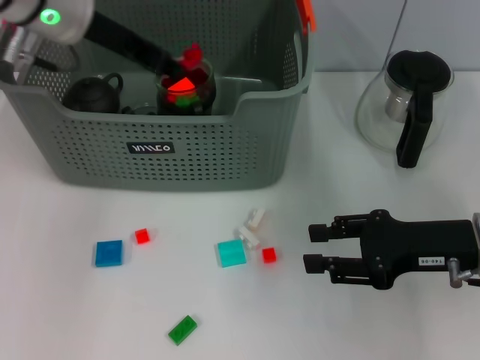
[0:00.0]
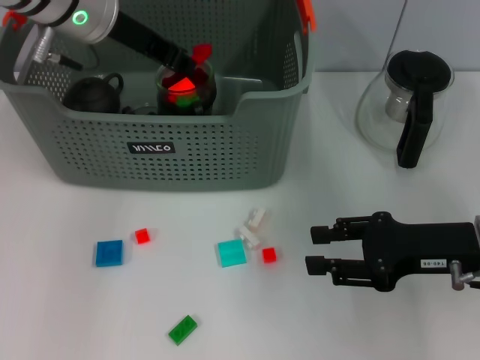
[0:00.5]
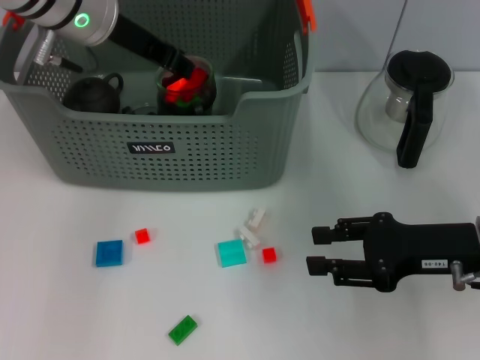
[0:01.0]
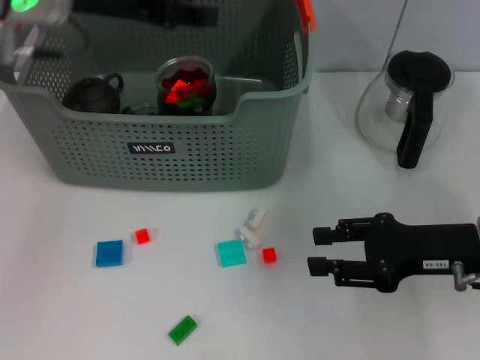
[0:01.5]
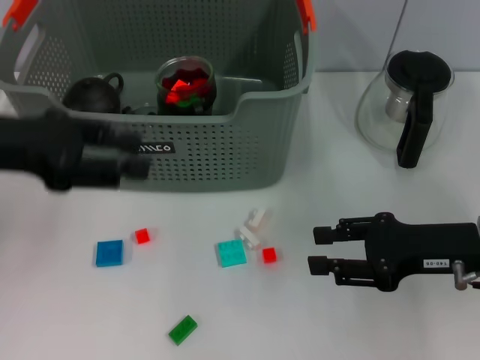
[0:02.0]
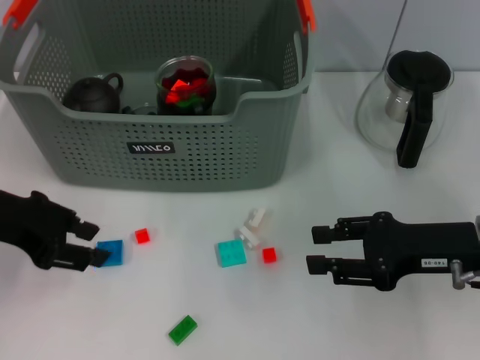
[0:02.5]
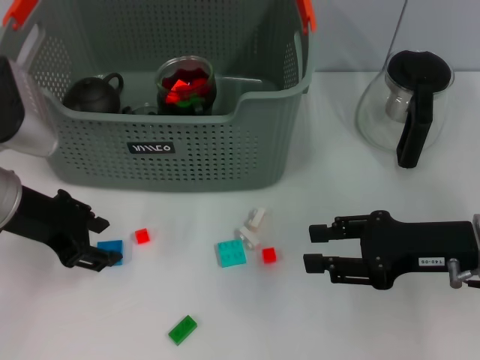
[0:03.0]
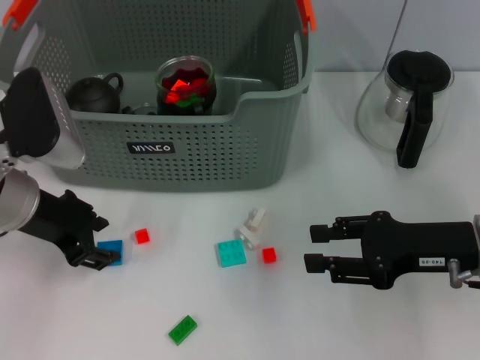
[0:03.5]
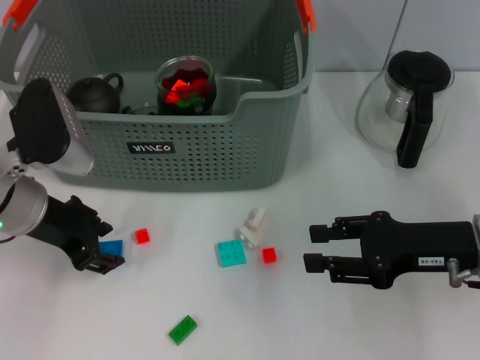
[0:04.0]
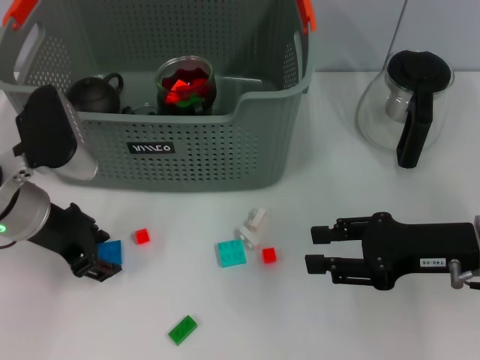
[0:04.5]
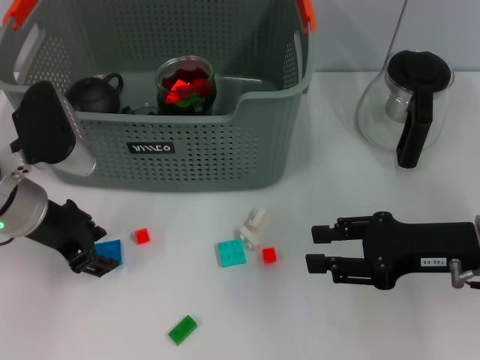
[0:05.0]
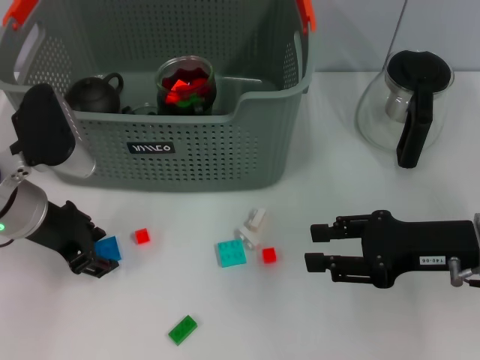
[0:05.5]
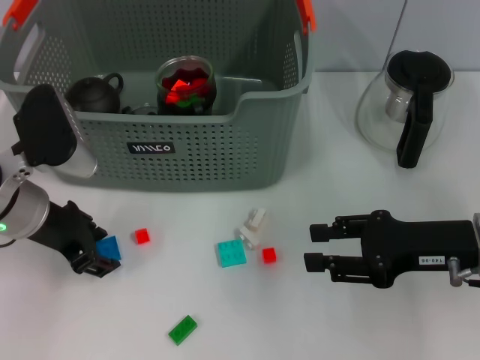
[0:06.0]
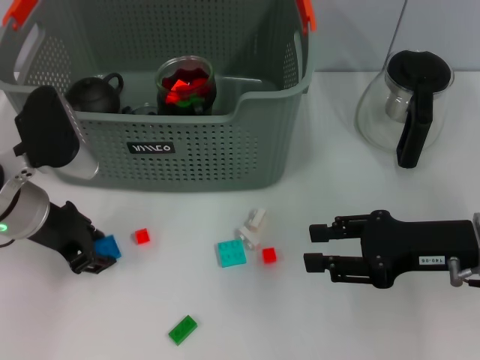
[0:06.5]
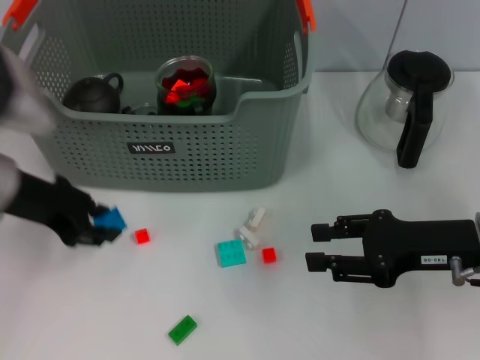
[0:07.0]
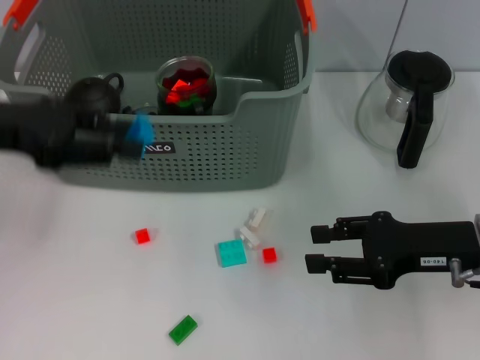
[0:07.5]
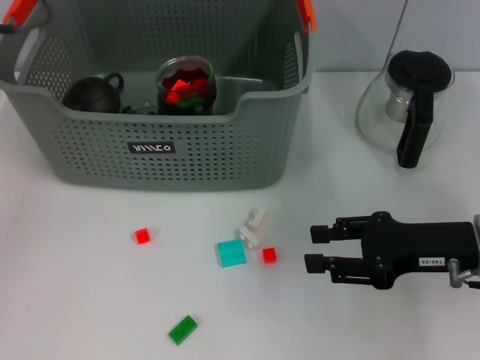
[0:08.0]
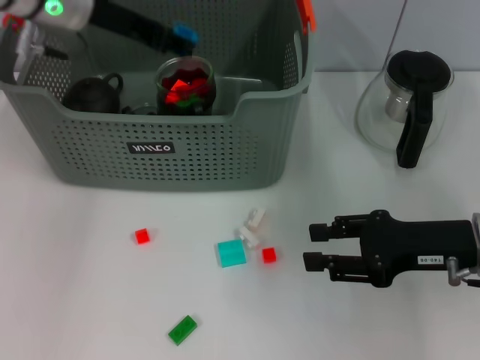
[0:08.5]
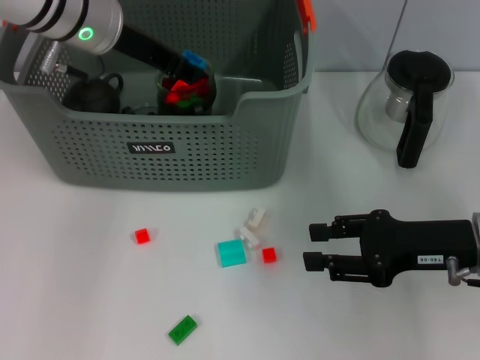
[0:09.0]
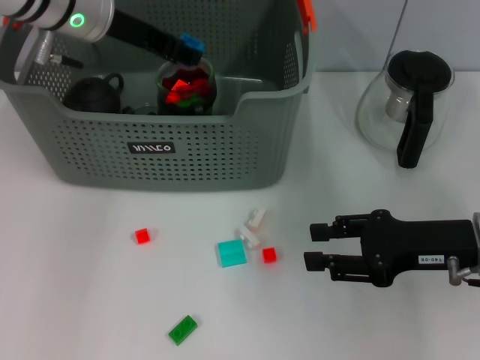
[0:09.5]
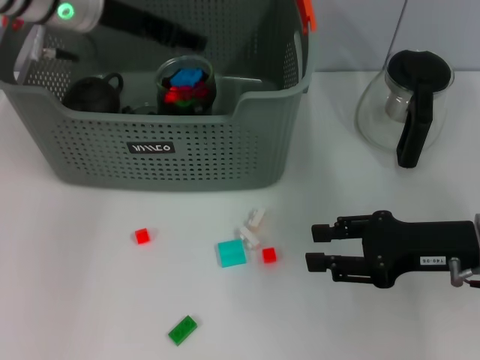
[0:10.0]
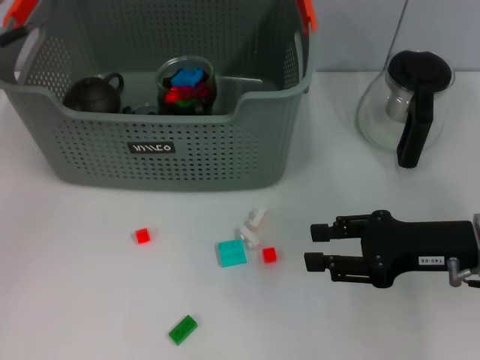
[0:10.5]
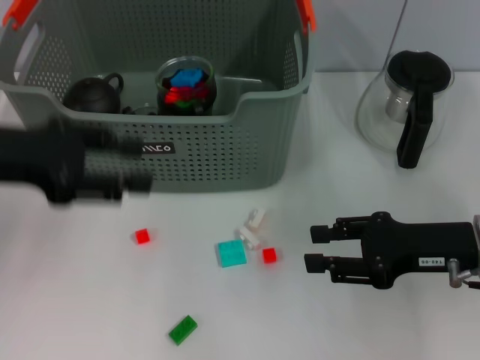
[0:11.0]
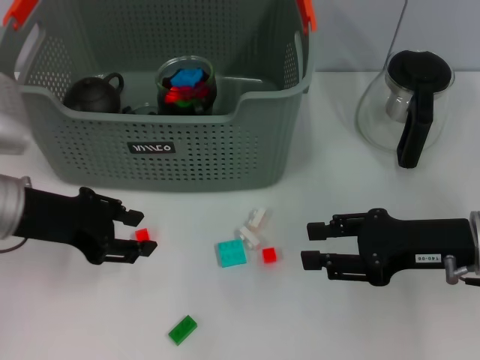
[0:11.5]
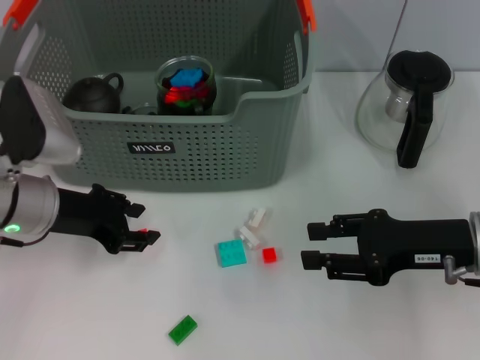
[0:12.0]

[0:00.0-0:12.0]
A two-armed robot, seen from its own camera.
Task of the whole recording: pick up the teacup on the table and place it into the storage bin, pick up the block on the table and place it into the storage bin.
Step, 0:01.5 to 0:06.0: Grasp the dark blue block with left gripper.
Step, 0:07.0 to 0:10.0: Place the dark blue block in the storage box with left gripper.
0:00.0 to 0:02.0: The left gripper travels backward and to the left by approximately 15 cm, and opens its fingers.
0:02.0 to 0:04.0: The left gripper goes about 10 cm downward.
0:04.0 to 0:06.0: Neither gripper changes place.
0:06.0 to 0:08.0: The left gripper travels upward and forward by about 20 cm.
0:08.0 to 0:10.0: The left gripper travels to the right by some 5 cm.
0:10.0 to 0:12.0: The left gripper shifts some 20 cm downward and backward.

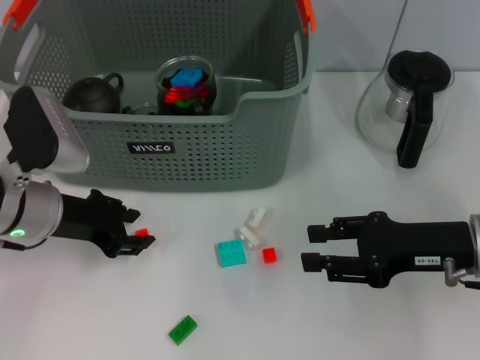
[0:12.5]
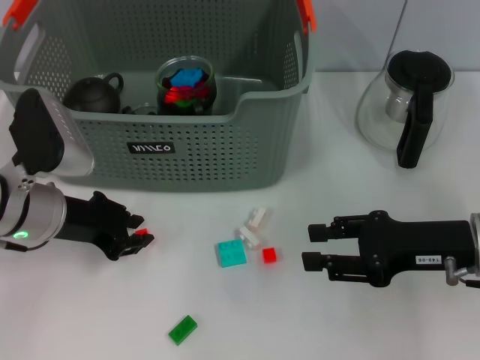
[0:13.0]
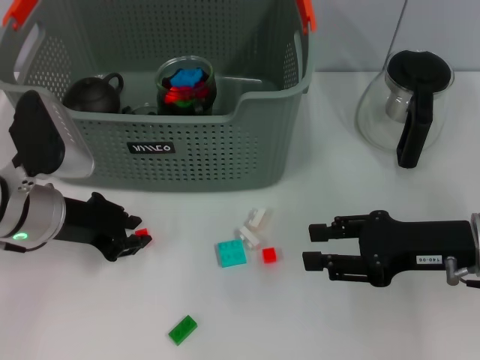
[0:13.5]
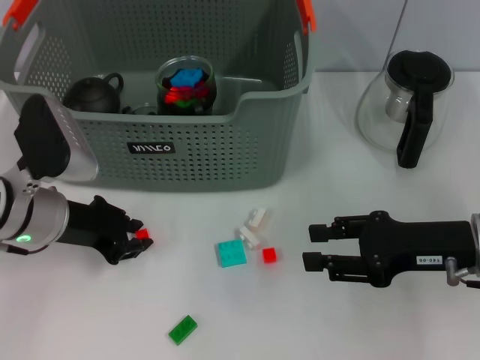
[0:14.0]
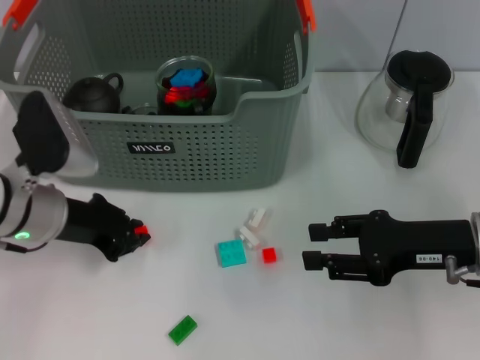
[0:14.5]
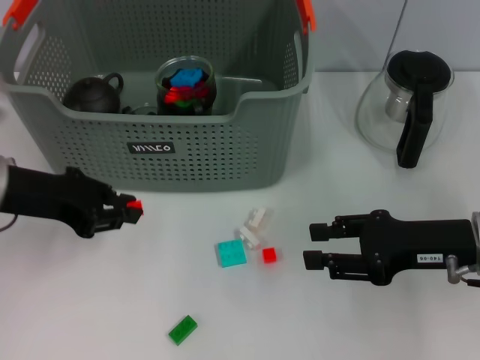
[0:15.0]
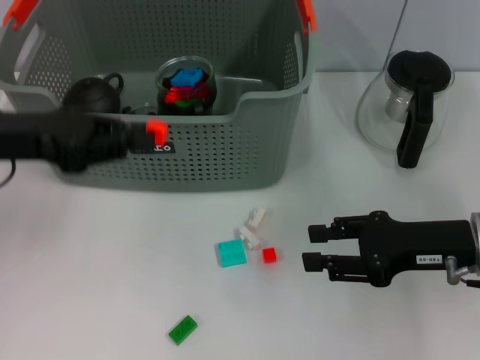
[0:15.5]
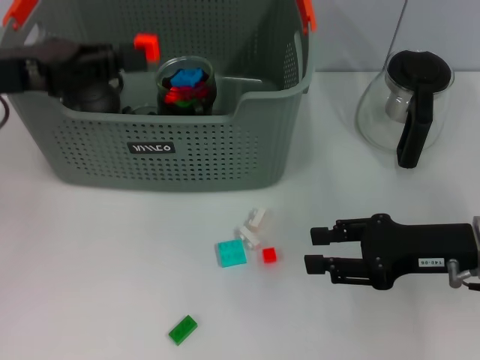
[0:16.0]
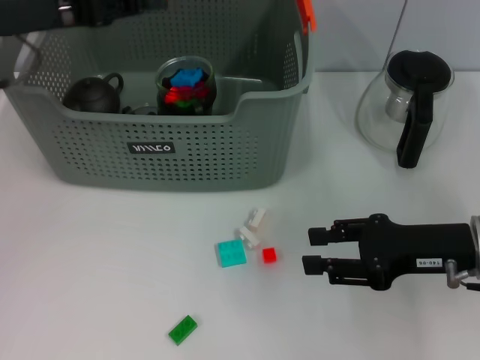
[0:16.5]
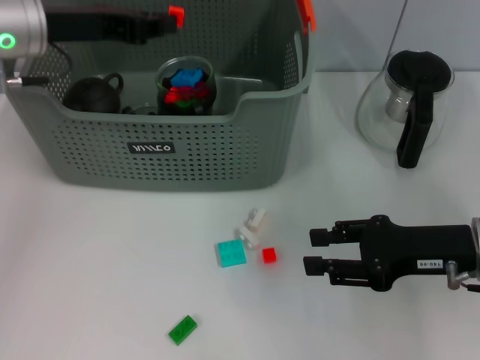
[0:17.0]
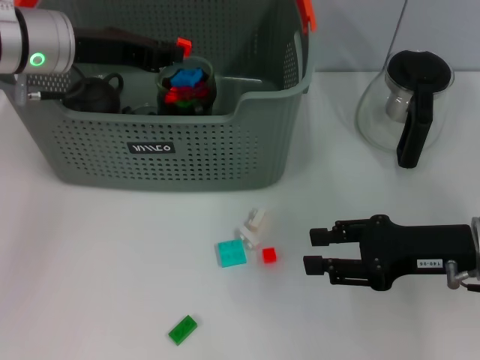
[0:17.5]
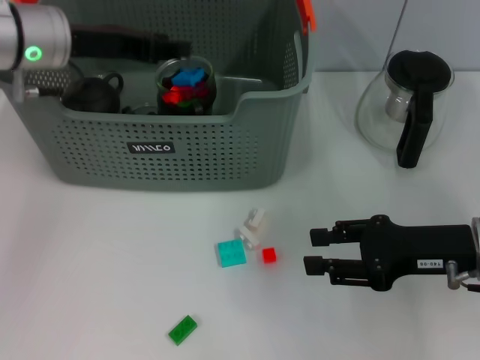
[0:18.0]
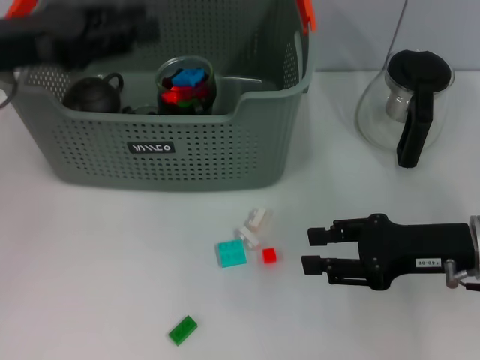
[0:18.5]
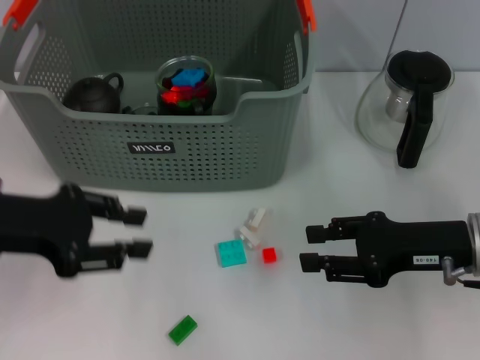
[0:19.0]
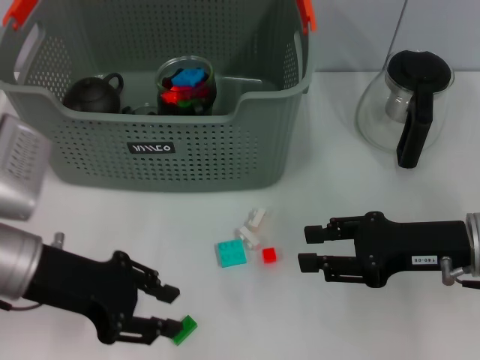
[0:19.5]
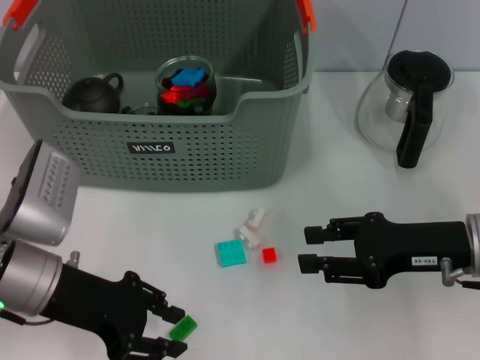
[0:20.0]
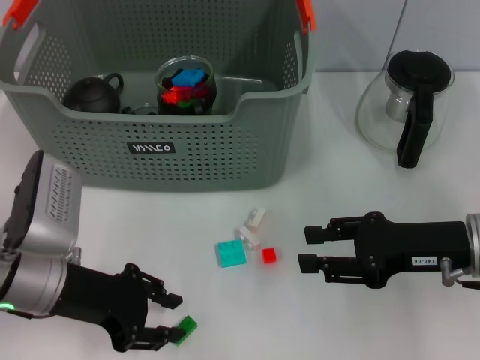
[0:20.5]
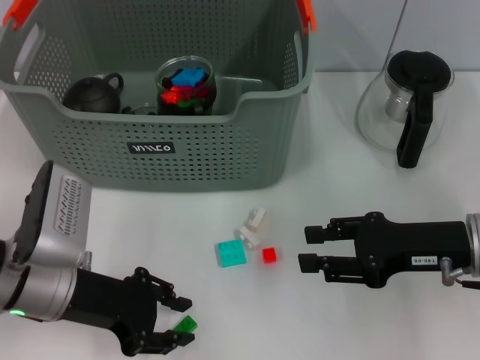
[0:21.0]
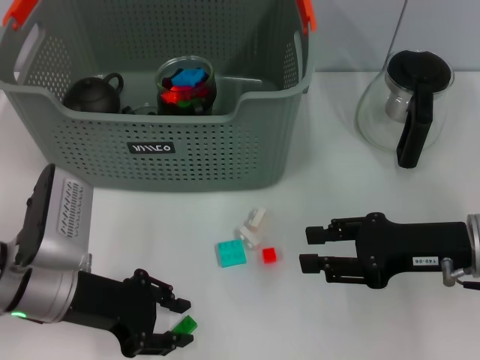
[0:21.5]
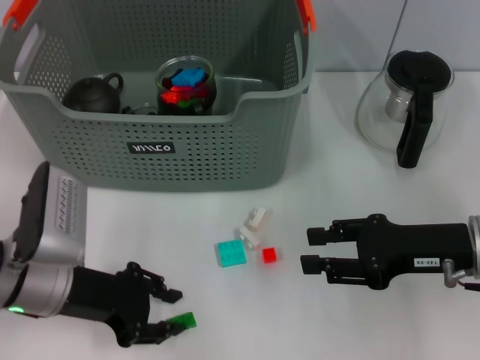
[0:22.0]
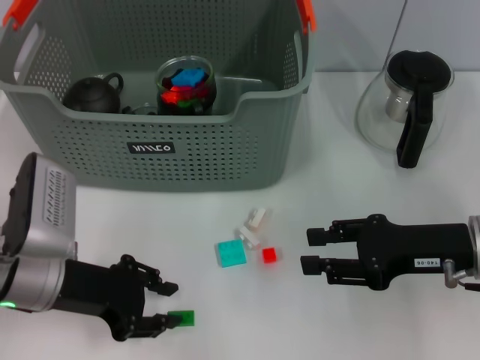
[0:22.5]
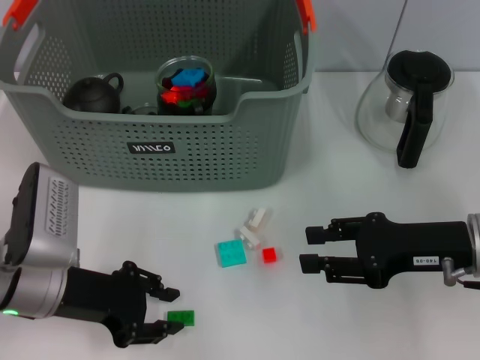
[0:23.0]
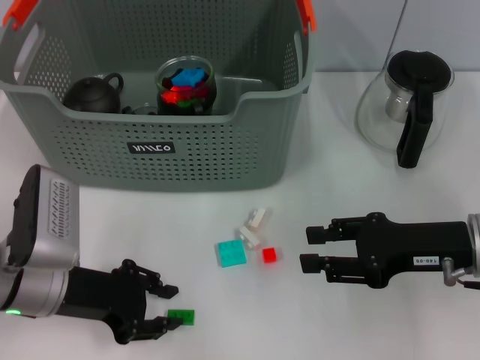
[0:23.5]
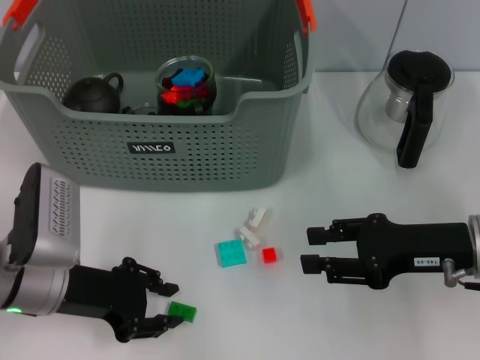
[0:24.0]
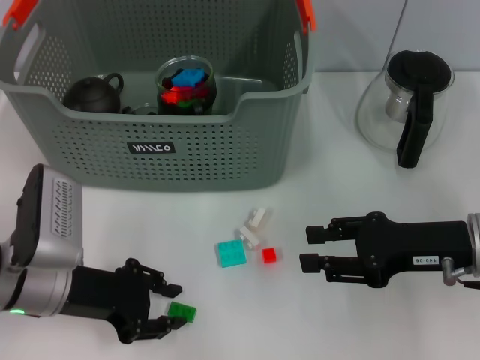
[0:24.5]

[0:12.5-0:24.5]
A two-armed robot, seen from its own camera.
Task of the whole recording: pick up the teacup on the table and place it into the storage bin, pick up the block on the table and place it into the storage bin.
Step, 0:14.5 to 0:18.0: Place the orange block in the storage box with left gripper.
0:12.5 to 0:14.5: The left gripper closes its fingers.
0:14.5 to 0:16.5: The left gripper goes approximately 15 cm upward.
0:16.5 to 0:18.5: The left gripper opens its fingers.
0:18.5 to 0:20.5: The left gripper travels downward and backward by about 15 cm.
0:20.5 to 0:22.5: The grippers stay close to where they were, moving slightly.
0:22.5 to 0:24.5: Neither gripper changes place.

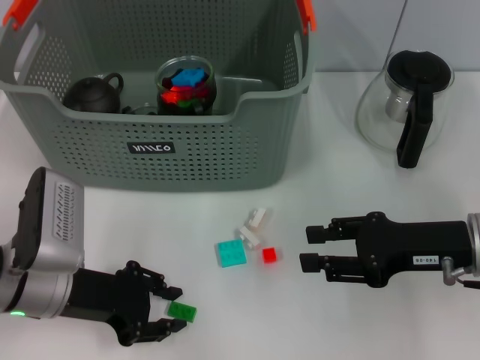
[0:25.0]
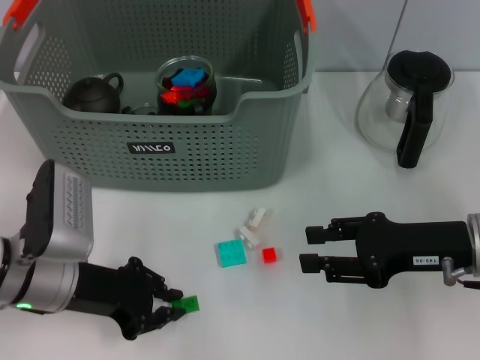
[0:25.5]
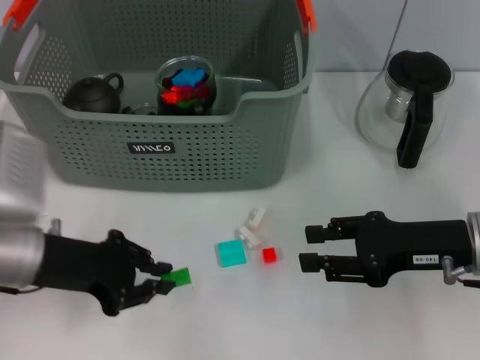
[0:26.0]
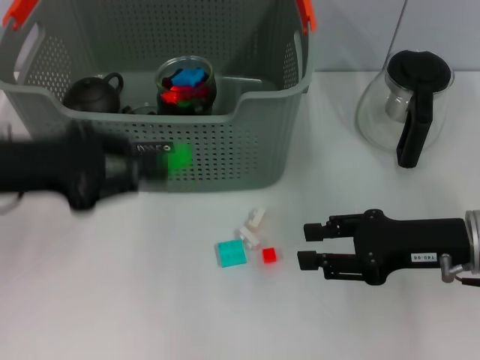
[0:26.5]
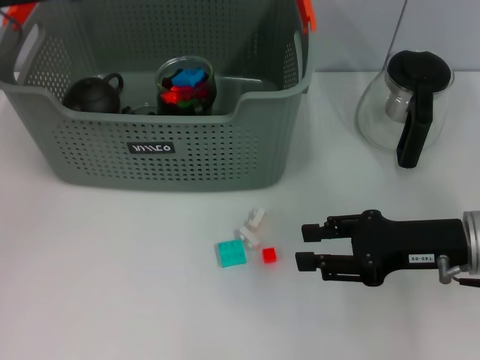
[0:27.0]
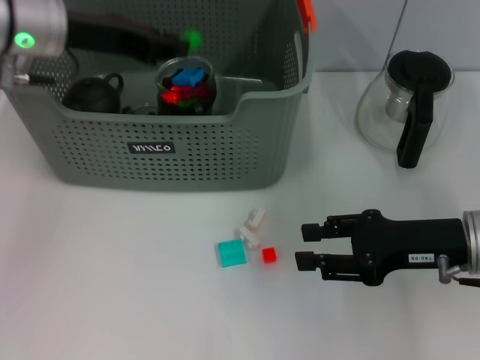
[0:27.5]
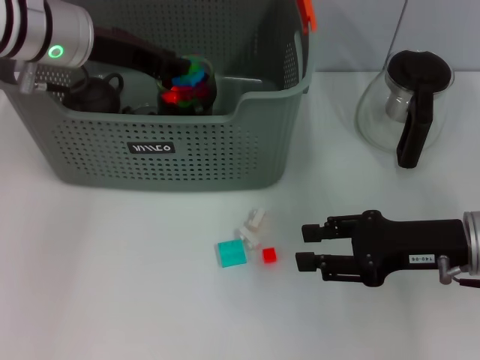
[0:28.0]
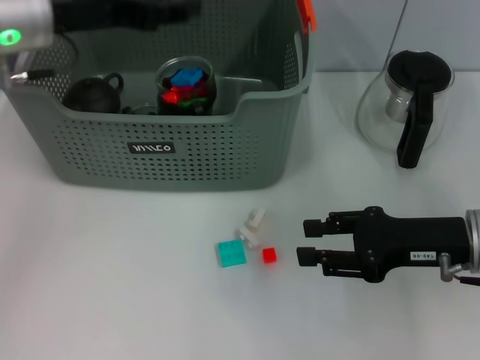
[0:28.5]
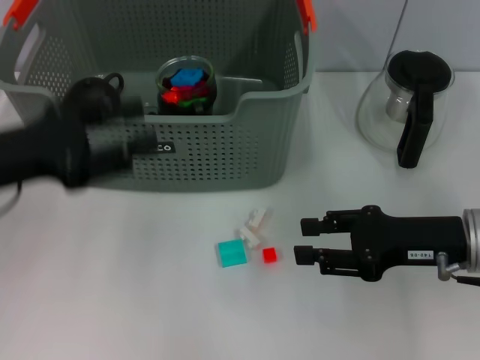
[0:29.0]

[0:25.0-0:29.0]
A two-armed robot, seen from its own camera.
Task of the whole recording: pick up the teacup on the table and place it into the storage bin, pick up the block on the table and place it into the storage bin.
Step, 0:26.0 to 0:28.0: Place the green block in the storage box with left gripper.
0:25.0 to 0:27.0: The left gripper heads upward and forward, covering about 20 cm.
0:27.0 to 0:29.0: The left gripper heads backward and downward, covering some 15 cm, and opens its fingers.
